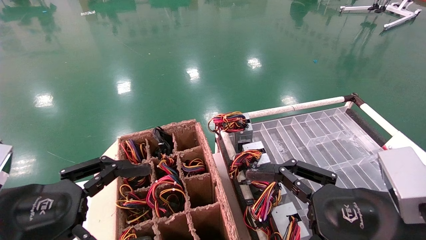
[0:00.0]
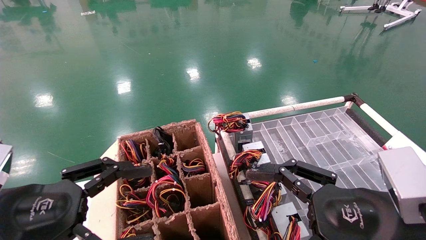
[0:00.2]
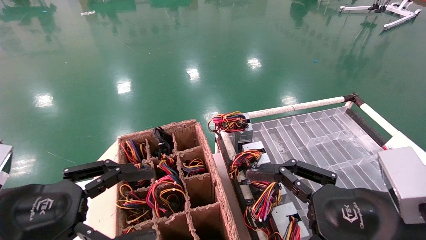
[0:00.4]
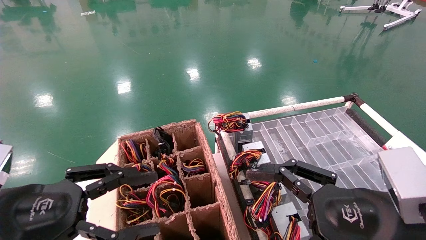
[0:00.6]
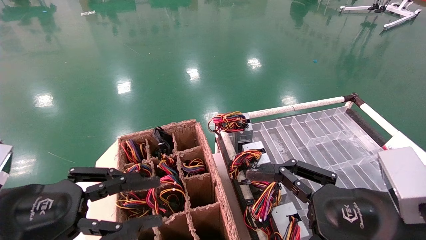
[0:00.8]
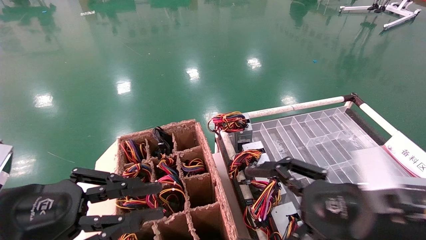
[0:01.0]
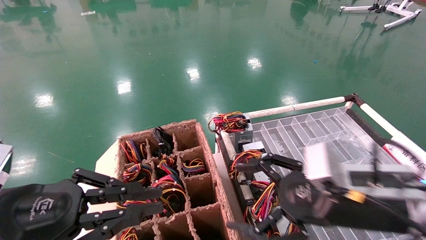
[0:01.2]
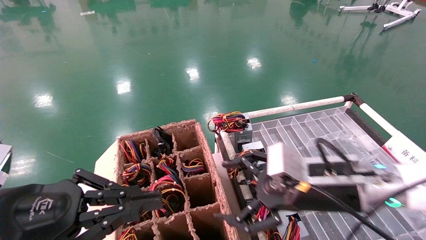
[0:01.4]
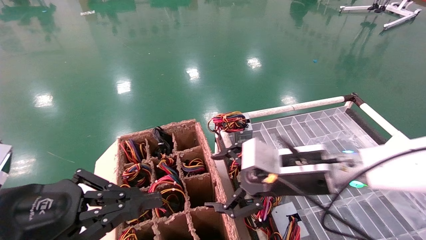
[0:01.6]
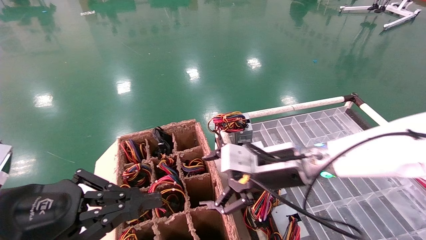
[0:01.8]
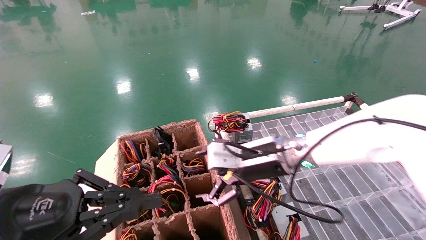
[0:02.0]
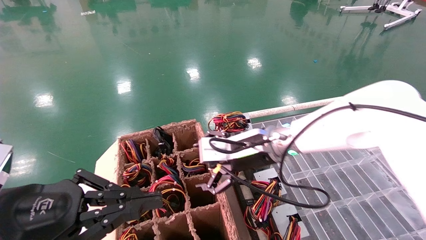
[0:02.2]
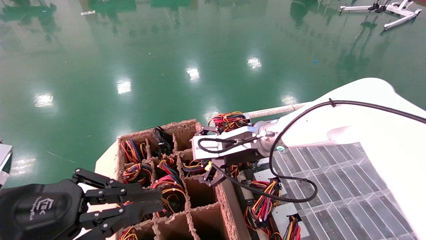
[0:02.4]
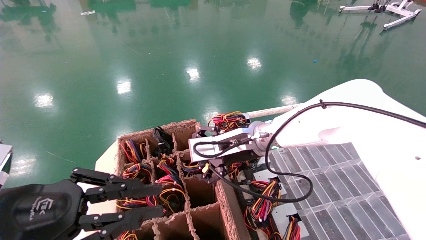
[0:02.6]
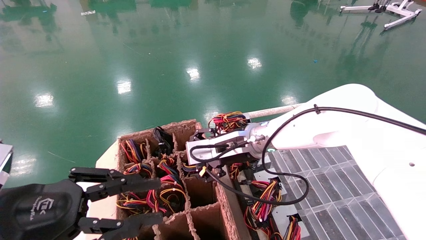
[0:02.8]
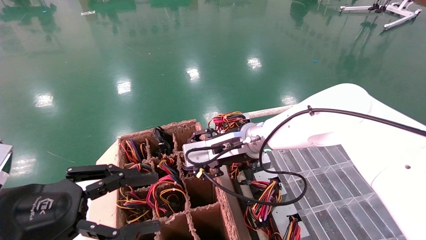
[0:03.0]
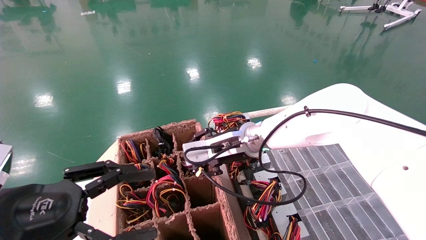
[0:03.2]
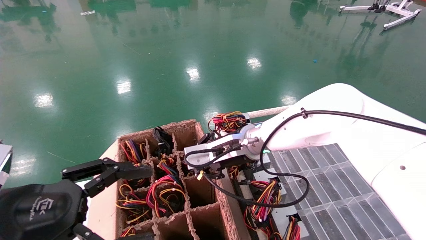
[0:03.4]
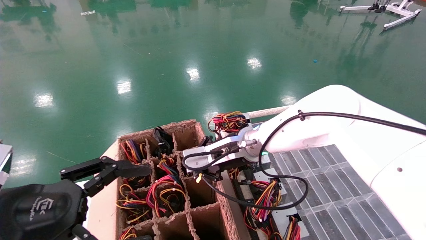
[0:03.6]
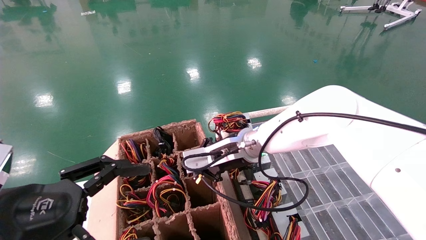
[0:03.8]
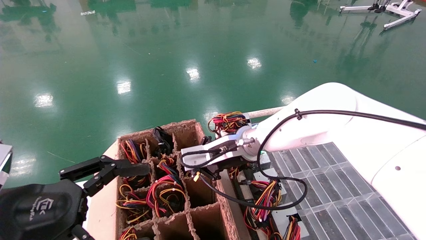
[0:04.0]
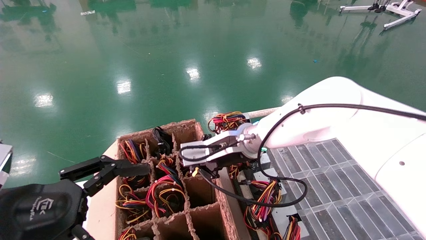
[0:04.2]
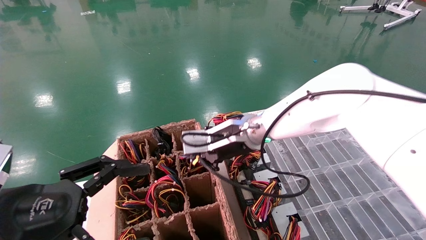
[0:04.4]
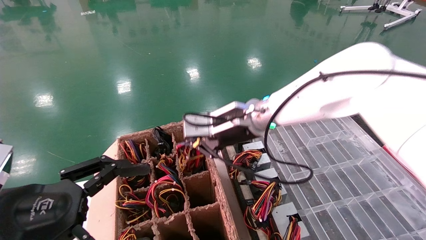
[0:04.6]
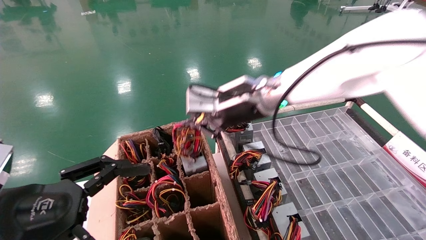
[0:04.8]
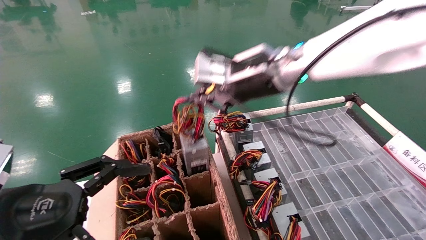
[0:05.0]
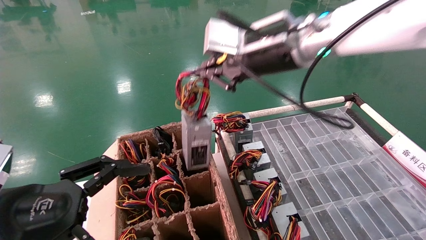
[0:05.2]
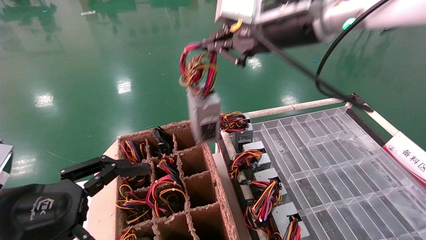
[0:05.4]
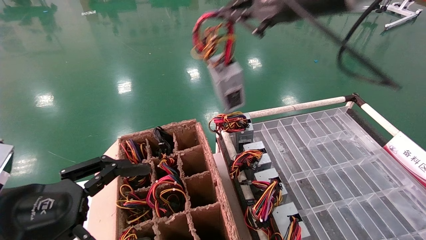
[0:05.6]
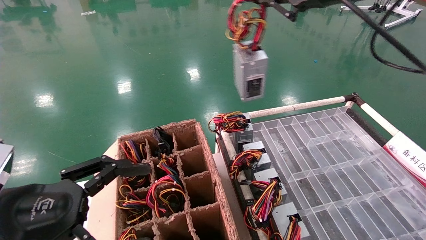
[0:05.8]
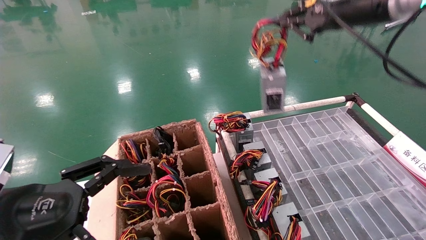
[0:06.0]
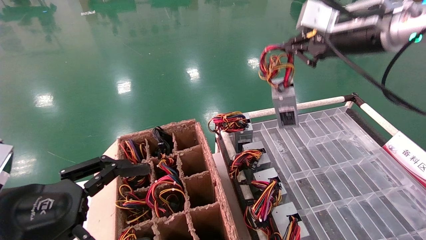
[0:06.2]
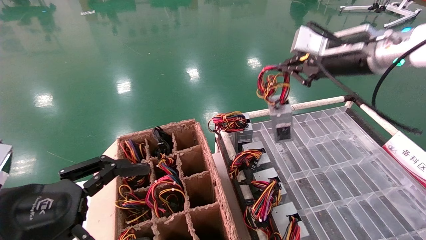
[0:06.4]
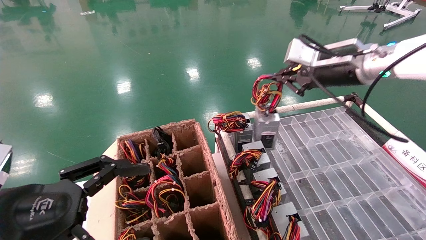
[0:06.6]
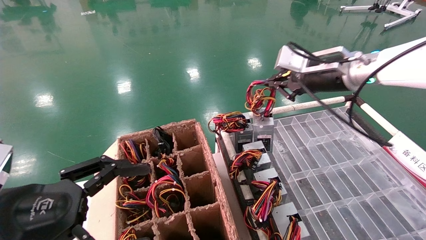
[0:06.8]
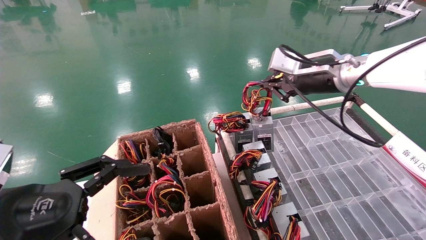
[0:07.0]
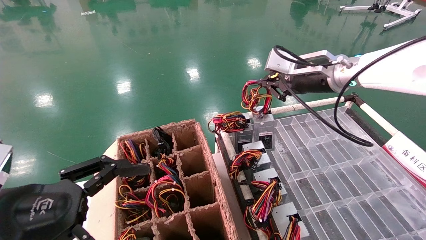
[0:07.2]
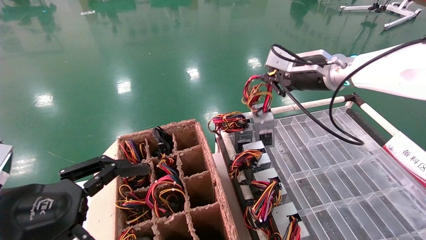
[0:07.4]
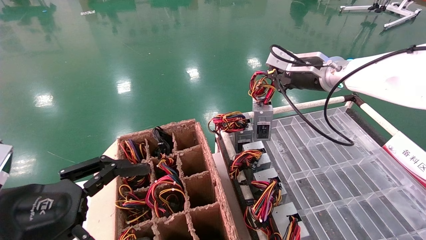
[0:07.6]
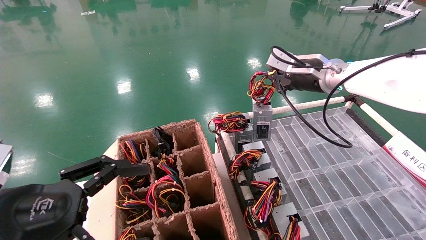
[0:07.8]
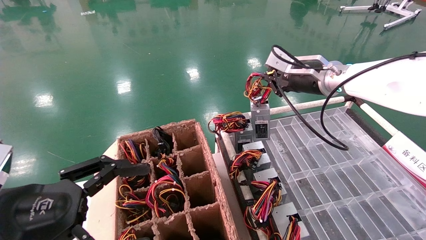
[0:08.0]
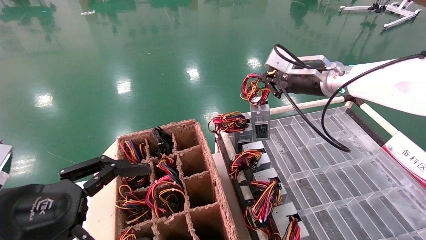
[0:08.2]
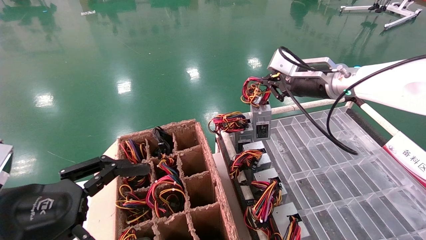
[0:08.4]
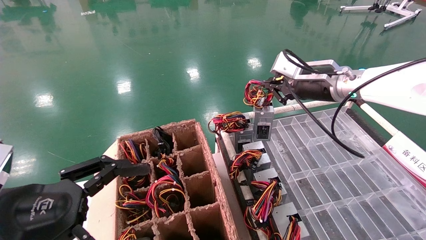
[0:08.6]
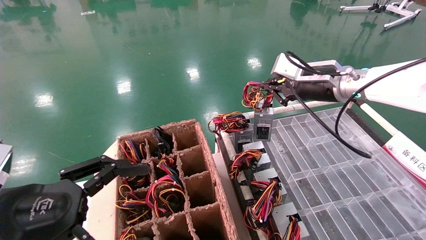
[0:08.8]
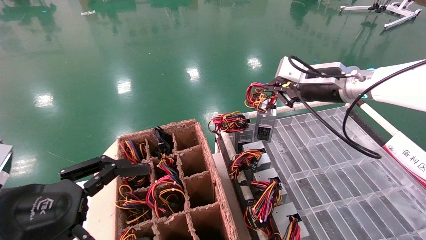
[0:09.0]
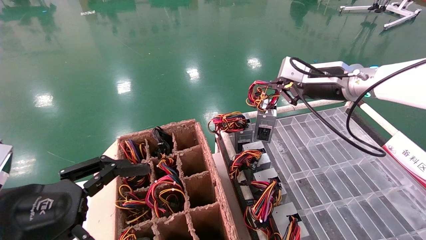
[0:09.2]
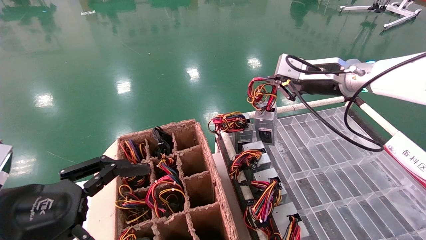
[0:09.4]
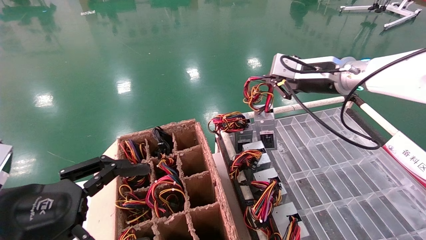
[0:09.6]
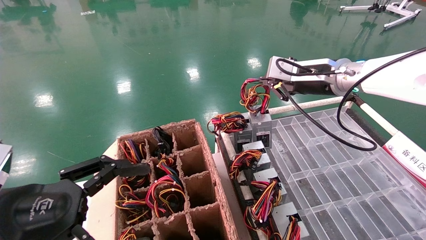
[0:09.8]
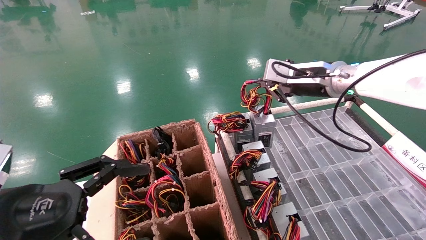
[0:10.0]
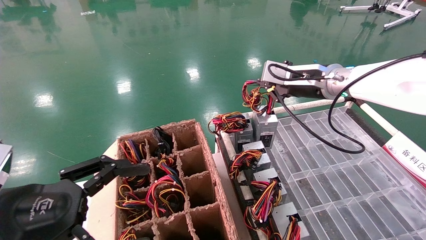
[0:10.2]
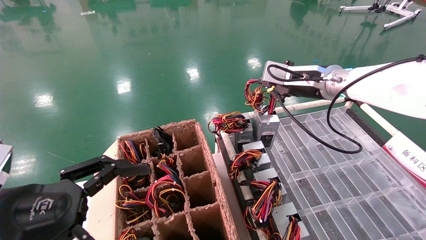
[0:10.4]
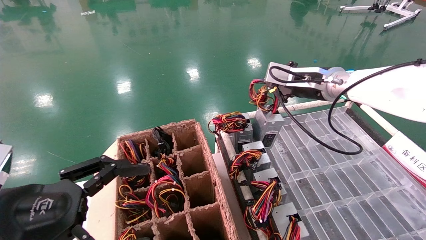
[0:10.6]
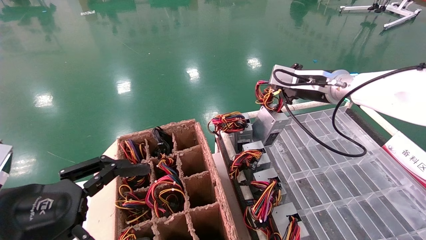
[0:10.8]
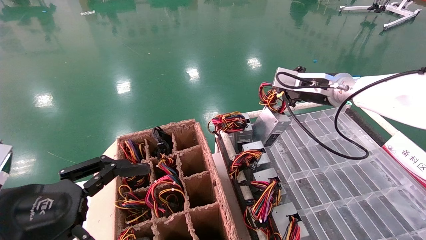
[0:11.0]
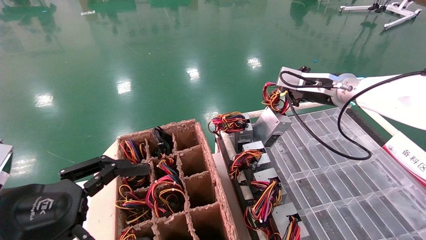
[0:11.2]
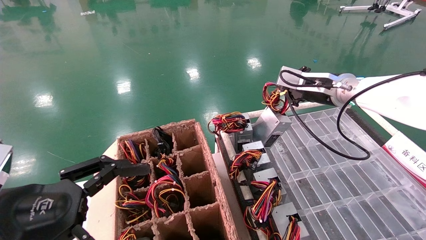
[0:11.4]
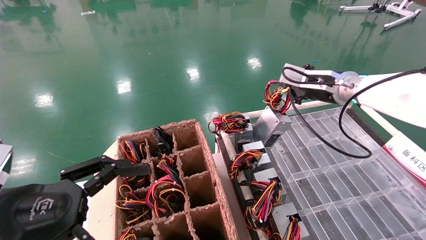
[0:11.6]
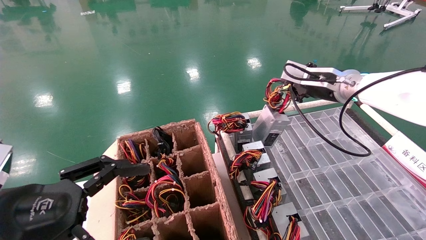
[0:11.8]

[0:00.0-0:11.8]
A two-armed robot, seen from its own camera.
Step, 0:01.4 to 0:04.0: Grab and lift the power supply from the large box.
0:00.0 to 0:01.4: The right gripper goes some 10 cm forward. The left gripper closes up.
0:01.4 to 0:03.0: The right gripper shifts approximately 20 cm to the left and forward.
0:03.0 to 0:04.4: The right gripper closes up, while the left gripper opens.
0:04.4 to 0:06.0: The right gripper shifts roughly 30 cm upward and to the right.
0:06.0 to 0:07.4: The right gripper goes approximately 15 cm forward and downward.
0:07.4 to 0:11.8: The grippers move only a little.

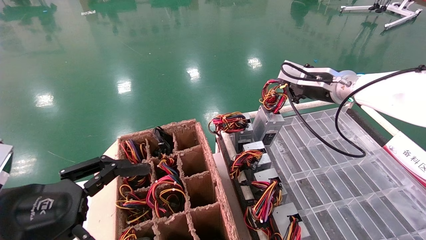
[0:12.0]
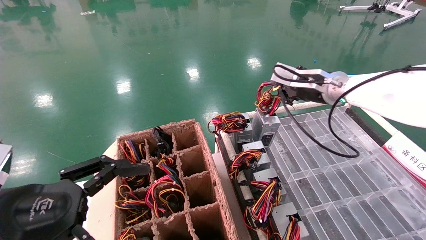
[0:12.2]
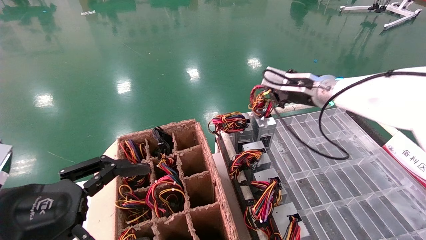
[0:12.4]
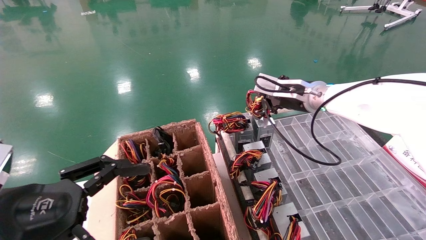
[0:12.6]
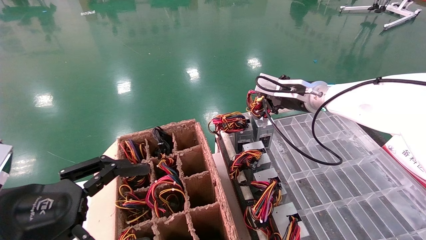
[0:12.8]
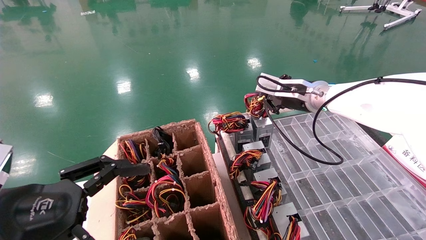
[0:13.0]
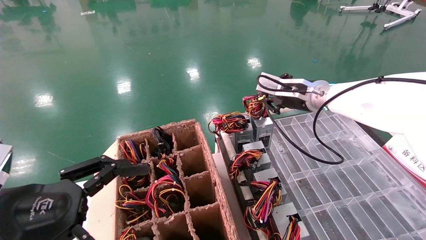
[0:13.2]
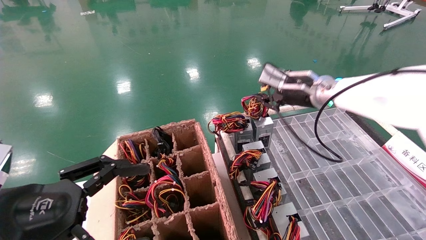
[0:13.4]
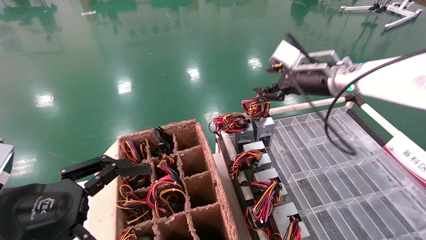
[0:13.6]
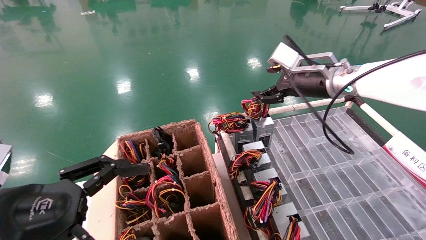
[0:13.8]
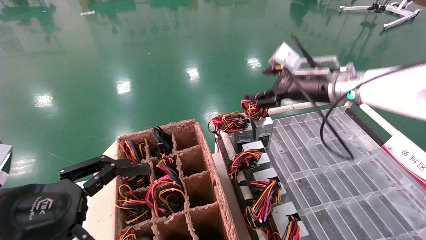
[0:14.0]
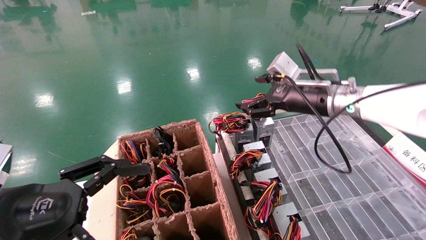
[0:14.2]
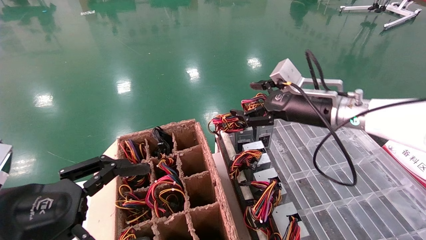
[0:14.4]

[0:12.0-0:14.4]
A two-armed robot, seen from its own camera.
0:12.0 to 0:13.2: There are only small adjustments of the grippers.
0:13.2 to 0:14.4: The right gripper shifts roughly 5 cm backward, and opens up.
